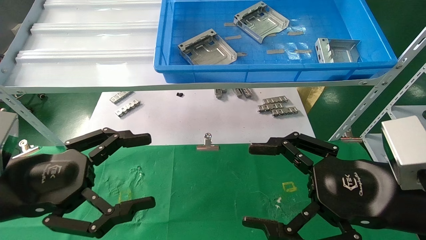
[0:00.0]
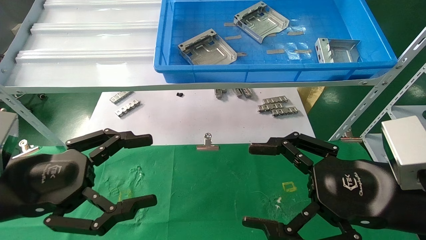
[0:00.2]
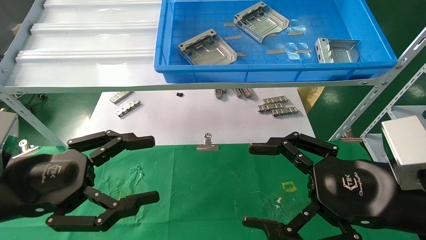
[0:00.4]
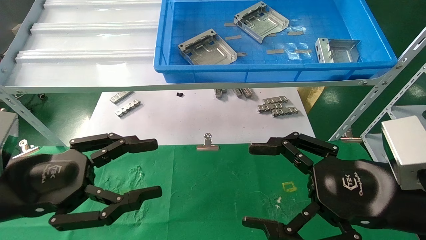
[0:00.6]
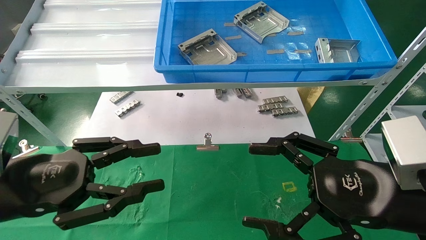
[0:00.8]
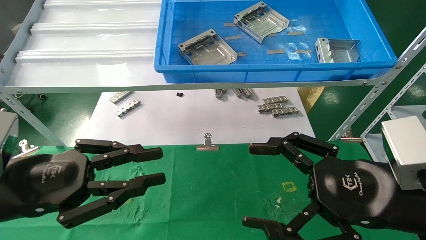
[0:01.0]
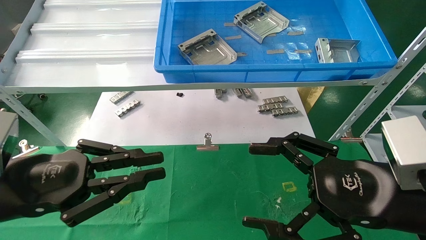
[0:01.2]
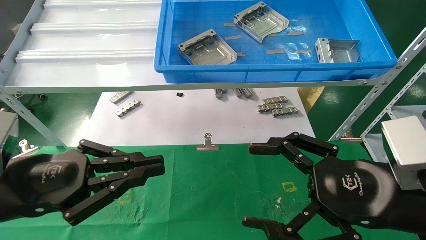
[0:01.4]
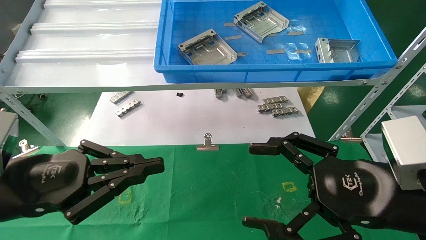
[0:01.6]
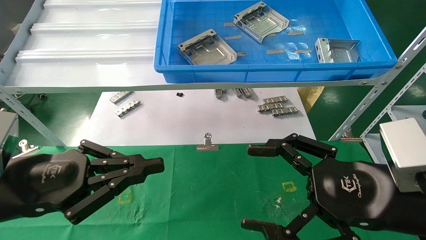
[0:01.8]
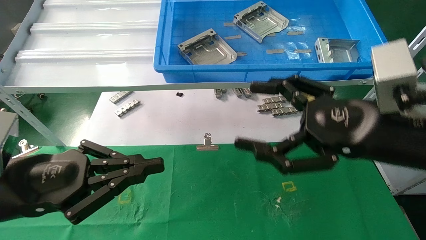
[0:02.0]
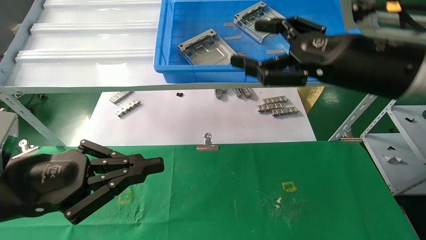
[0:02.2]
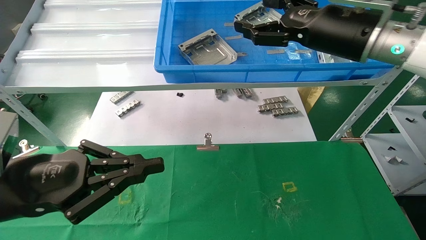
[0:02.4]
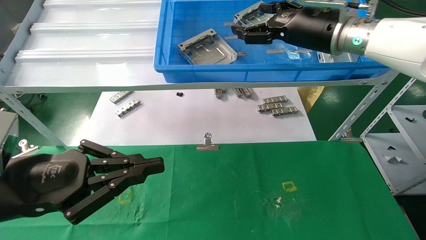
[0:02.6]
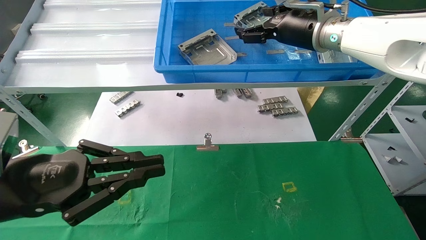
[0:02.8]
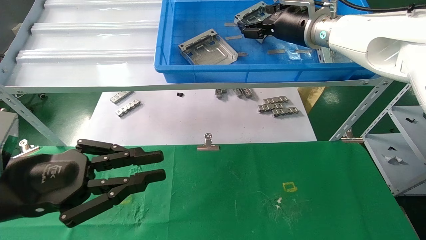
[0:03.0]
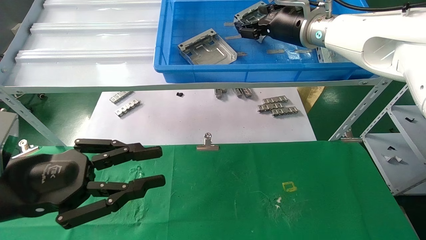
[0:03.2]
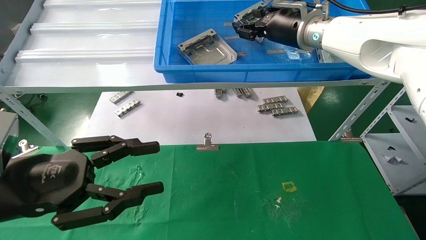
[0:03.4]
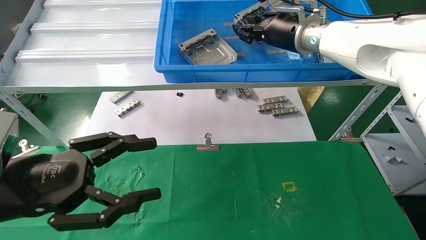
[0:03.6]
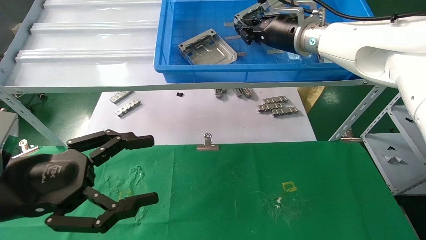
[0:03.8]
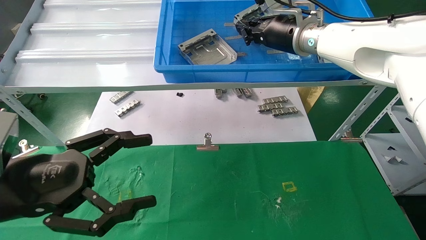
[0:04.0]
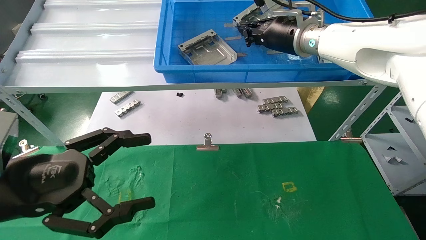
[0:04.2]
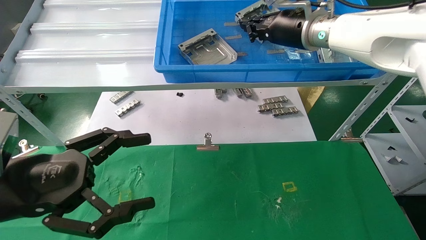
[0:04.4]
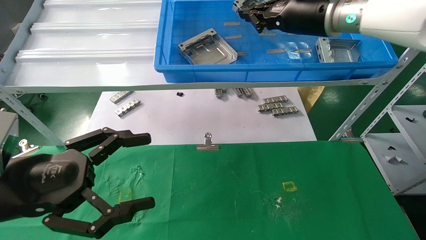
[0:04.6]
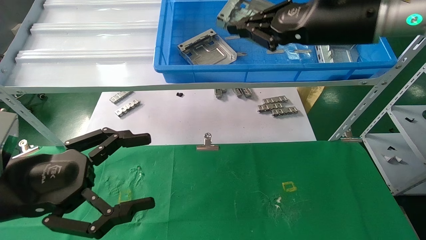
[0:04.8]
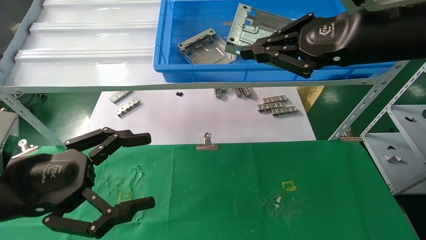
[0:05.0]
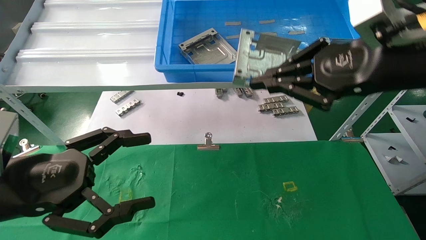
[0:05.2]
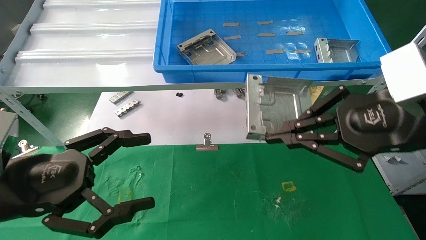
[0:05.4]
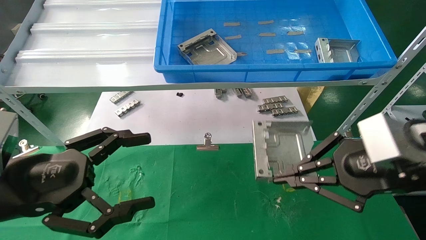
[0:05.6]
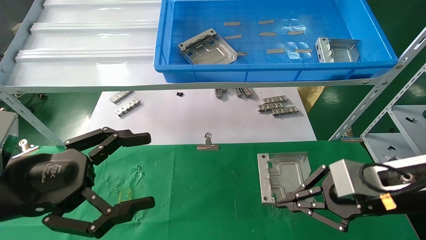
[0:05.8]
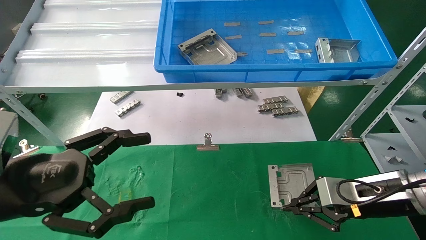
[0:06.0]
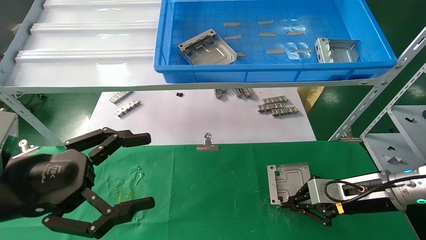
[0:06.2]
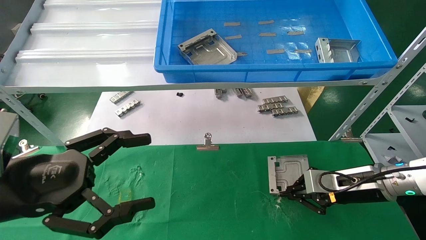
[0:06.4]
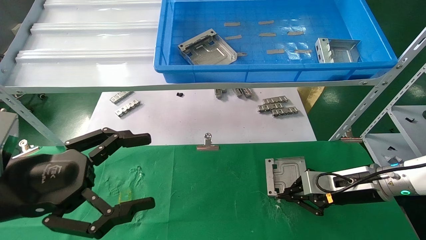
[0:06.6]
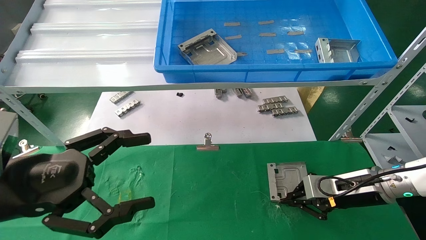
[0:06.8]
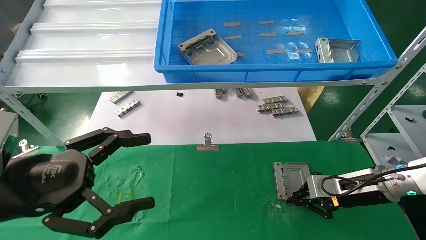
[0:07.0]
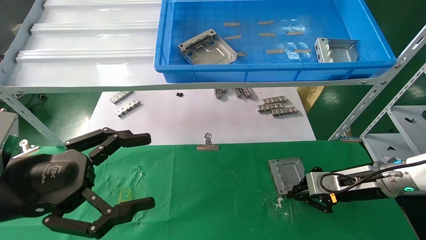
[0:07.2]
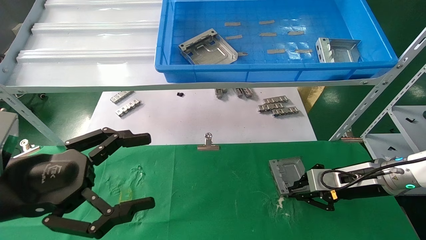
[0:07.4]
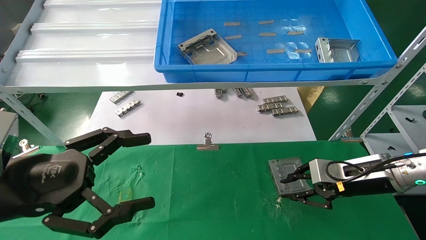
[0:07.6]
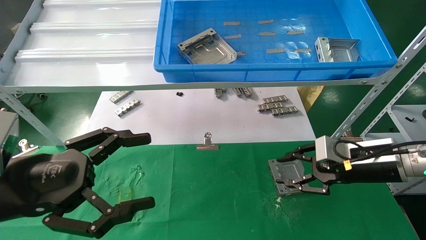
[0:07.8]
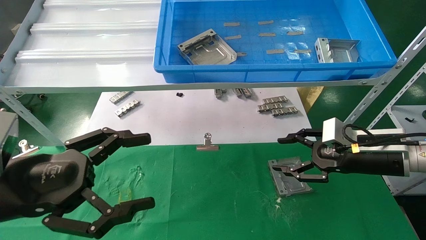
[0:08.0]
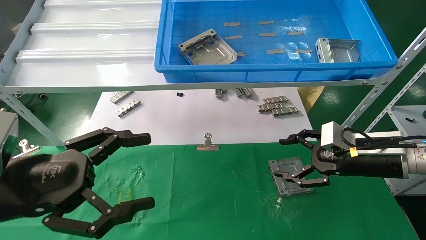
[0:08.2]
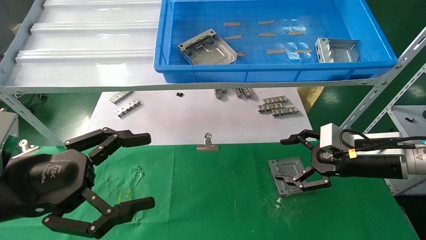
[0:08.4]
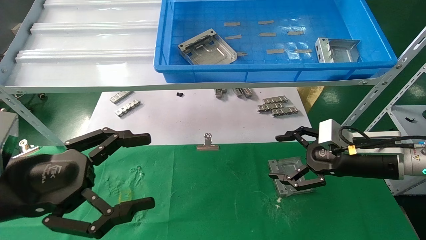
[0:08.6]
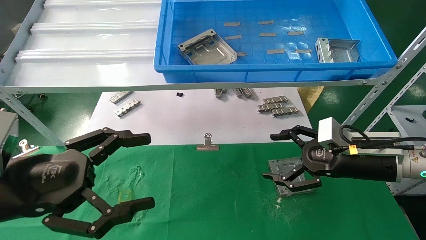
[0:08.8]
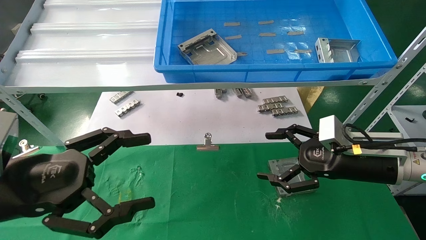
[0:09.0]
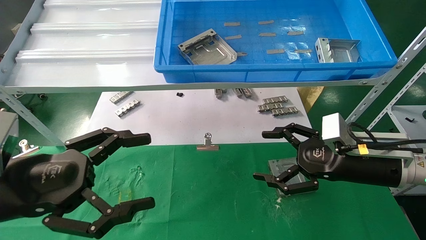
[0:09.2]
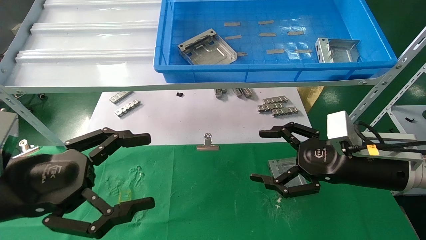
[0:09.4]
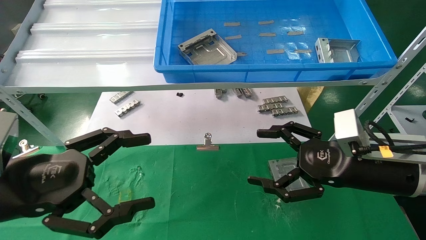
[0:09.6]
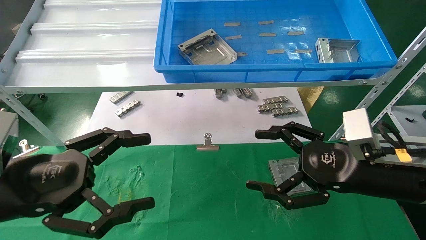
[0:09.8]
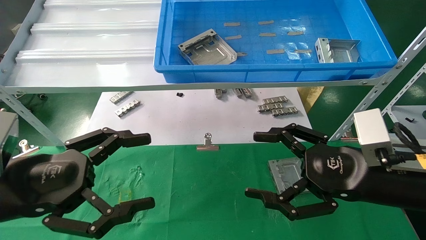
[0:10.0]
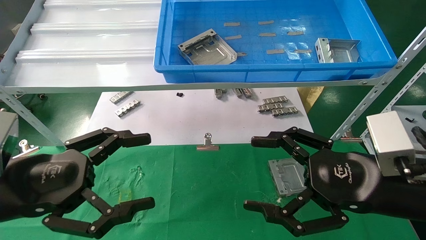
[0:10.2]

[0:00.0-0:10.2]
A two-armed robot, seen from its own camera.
Task of the whole recording: use the mechanical arm to pick up the parts and place them on the table.
Step, 0:01.4 to 0:04.6: Pick up the hard drive bracket from the feeding area.
Step, 0:04.8 to 0:07.6: Place the hard drive bracket into the box.
0:00.0 to 0:01.4: The left gripper closes its fingers.
0:01.4 to 0:03.0: The right gripper shifts about 30 cm forward and upward.
0:03.0 to 0:04.4: The right gripper closes up, while the left gripper opens up.
0:04.4 to 0:05.8: The right gripper heads downward, backward and to the right, covering about 30 cm.
0:05.8 to 0:07.2: The right gripper goes about 15 cm forward and downward.
0:07.2 to 0:08.8: The right gripper moves upward, approximately 5 cm, and opens up.
0:08.8 to 0:10.2: The right gripper moves backward, roughly 10 cm.
